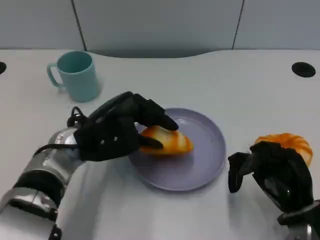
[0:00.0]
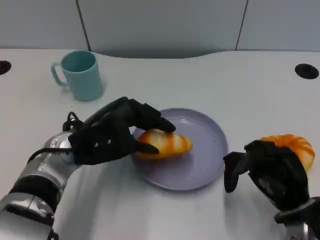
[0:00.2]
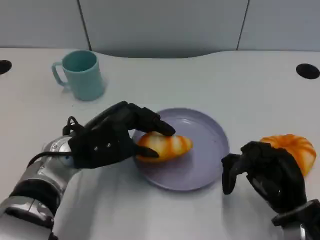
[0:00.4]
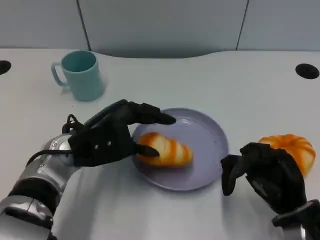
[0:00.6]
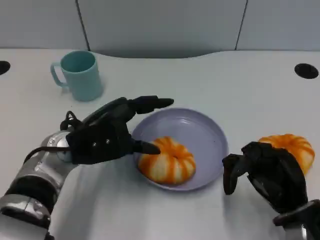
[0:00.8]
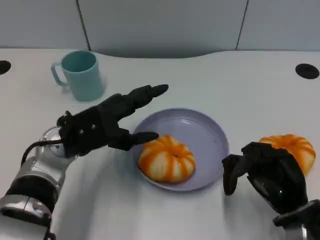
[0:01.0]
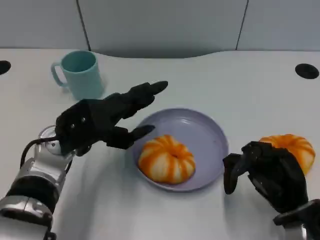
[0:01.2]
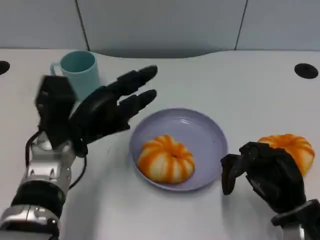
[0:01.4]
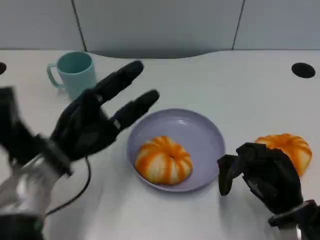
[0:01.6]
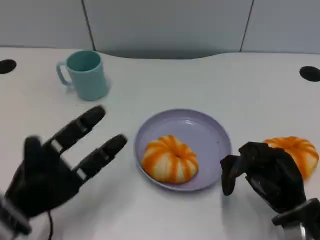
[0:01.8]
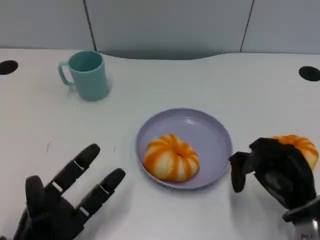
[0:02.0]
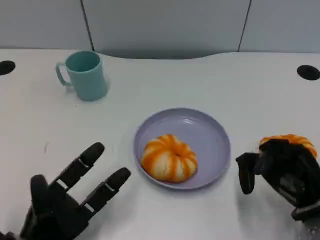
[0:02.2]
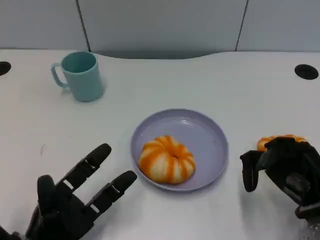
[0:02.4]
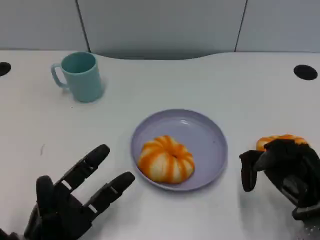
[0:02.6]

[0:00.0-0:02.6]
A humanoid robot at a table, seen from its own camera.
Task of the whole recording: Grasp the bread from the table and place it into the plate.
0:00.0 to 0:01.2: The hands stay close to where they were, moving slightly.
0:01.2 to 0:02.6: The left hand travels backward, downward and to the left by roughly 20 cm.

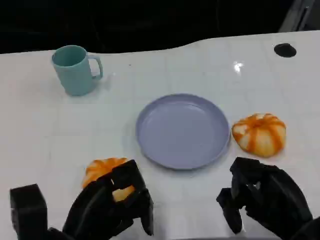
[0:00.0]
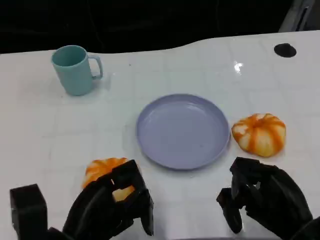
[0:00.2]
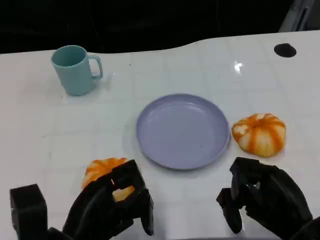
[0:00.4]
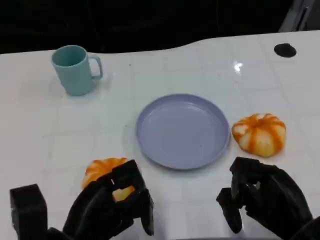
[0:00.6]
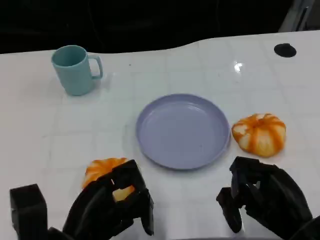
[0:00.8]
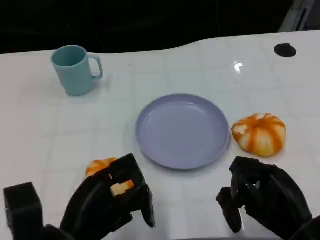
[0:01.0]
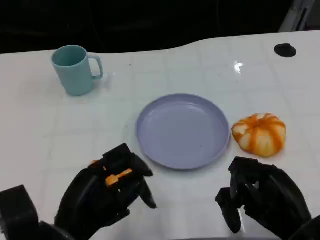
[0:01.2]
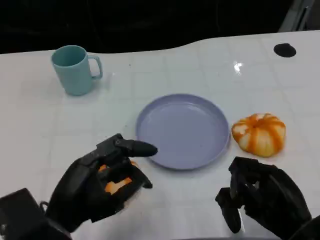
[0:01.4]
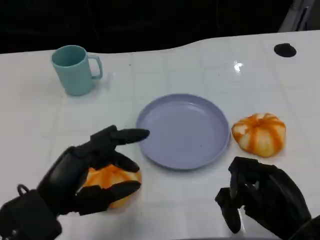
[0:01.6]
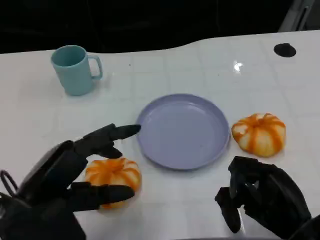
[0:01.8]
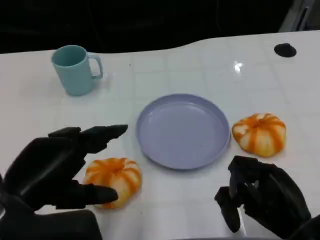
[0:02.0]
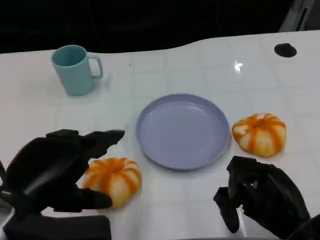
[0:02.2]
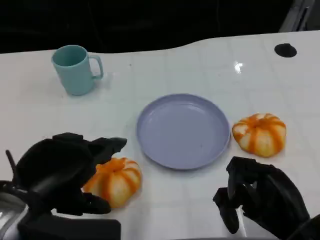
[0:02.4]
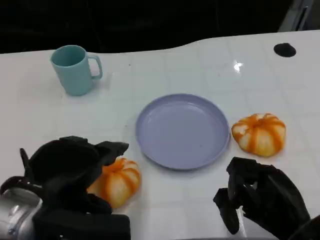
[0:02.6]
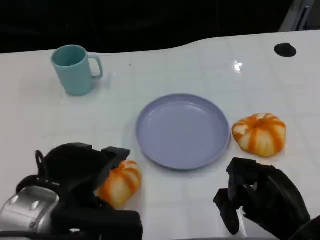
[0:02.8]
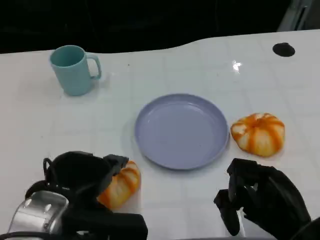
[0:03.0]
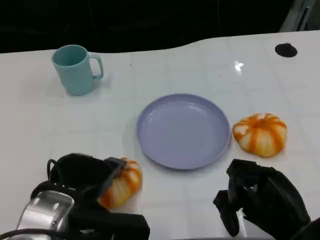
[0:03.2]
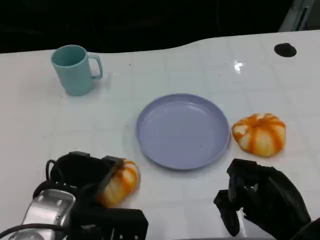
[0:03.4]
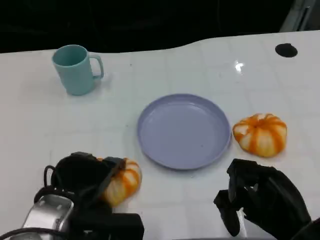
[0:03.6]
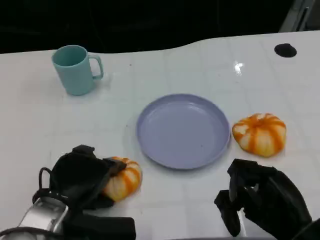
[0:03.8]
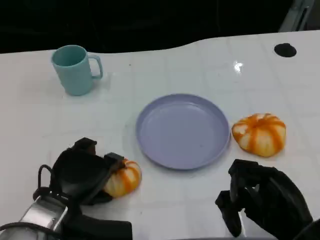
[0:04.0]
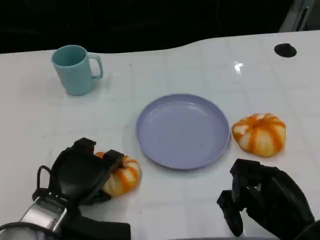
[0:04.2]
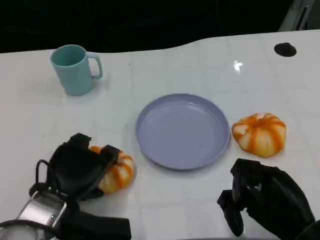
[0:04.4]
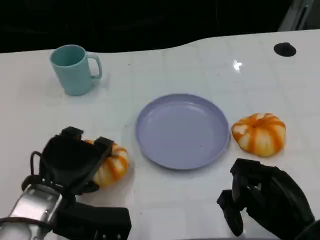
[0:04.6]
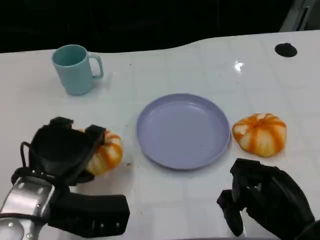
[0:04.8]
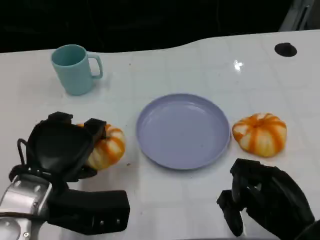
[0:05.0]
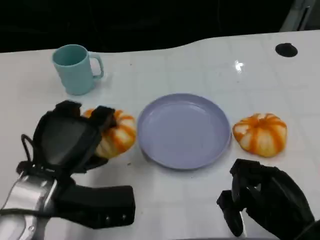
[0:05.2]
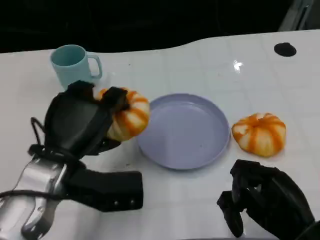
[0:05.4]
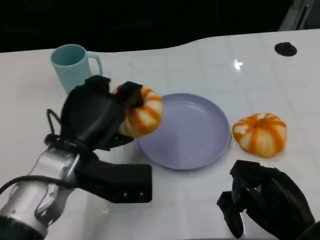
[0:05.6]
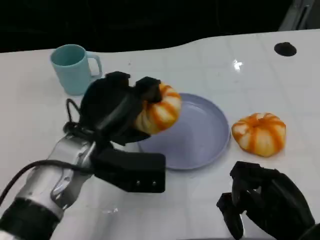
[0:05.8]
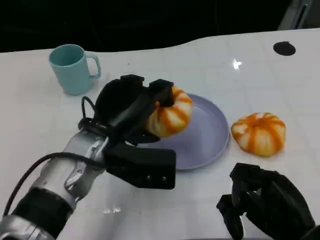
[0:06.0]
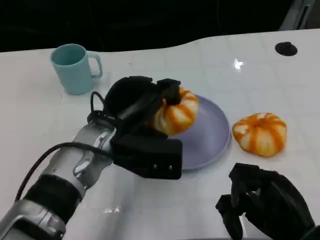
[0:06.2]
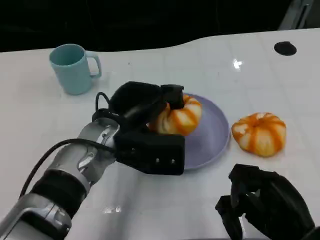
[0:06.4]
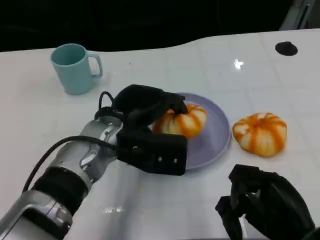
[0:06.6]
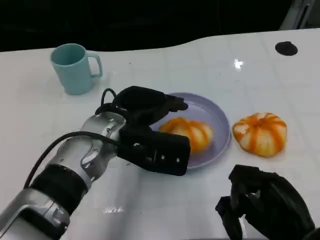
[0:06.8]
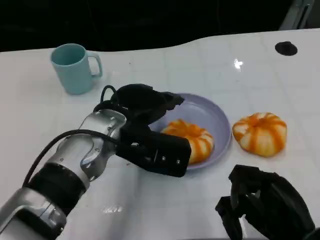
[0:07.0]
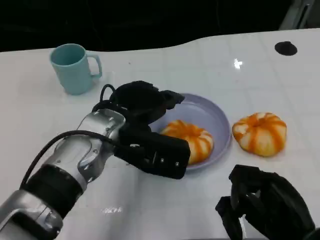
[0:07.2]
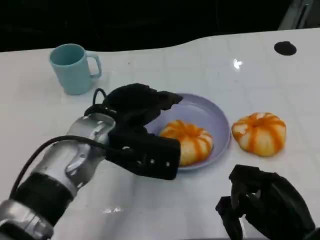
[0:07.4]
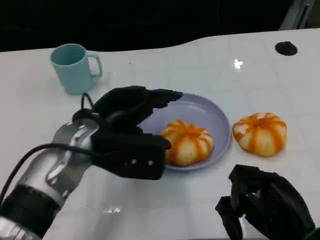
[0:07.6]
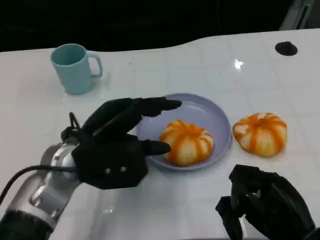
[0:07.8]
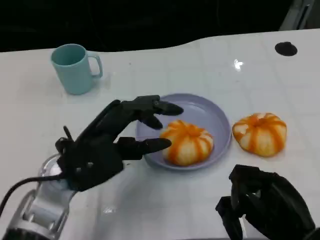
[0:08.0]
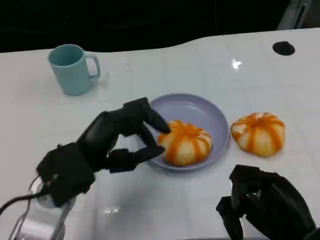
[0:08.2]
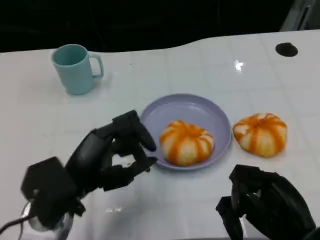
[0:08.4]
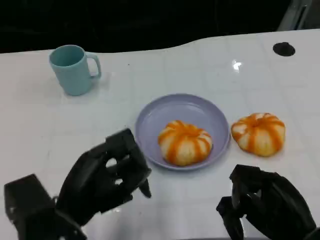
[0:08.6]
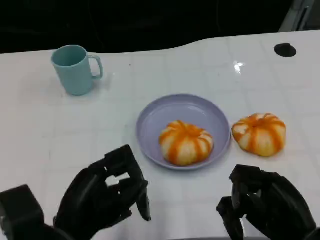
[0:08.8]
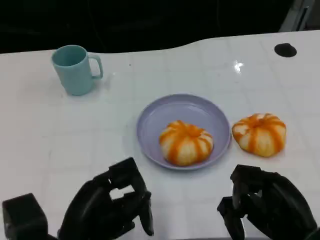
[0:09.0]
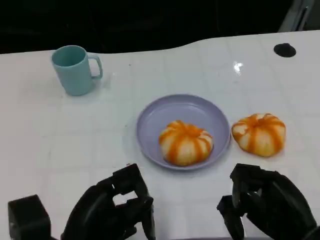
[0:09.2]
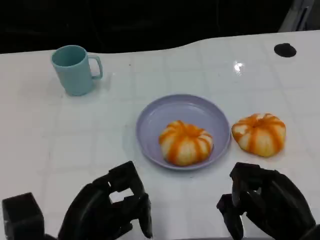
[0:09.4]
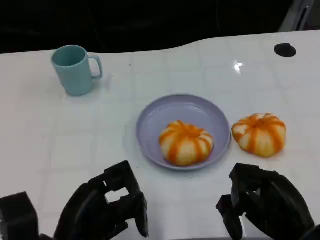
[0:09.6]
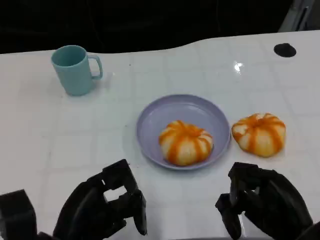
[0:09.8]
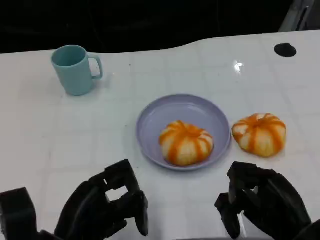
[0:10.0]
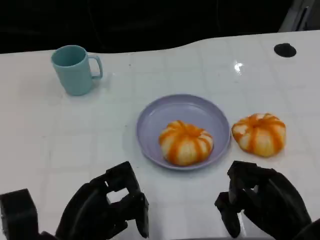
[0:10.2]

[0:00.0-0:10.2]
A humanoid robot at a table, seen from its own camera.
Task of the whole recording: Grasp the bread from the table and place it into the plate.
0:03.0 to 0:04.4: The left hand travels downward by roughly 5 cm.
0:04.4 to 0:05.8: The left hand shifts approximately 10 cm upward, to the right and forward.
0:07.2 to 0:08.8: The left hand shifts about 15 cm backward and to the left.
0:08.8 to 0:10.2: The hands stay close to where they were, moving slightly.
